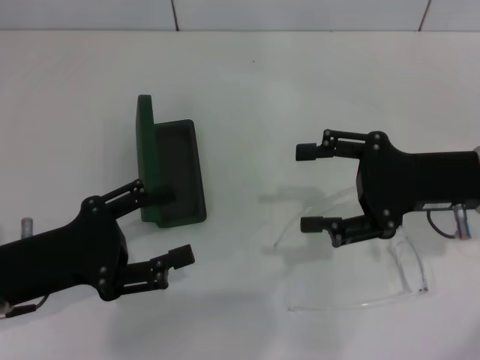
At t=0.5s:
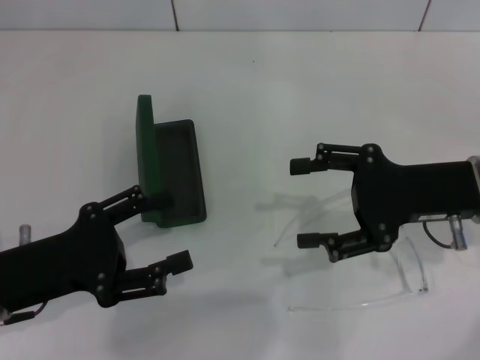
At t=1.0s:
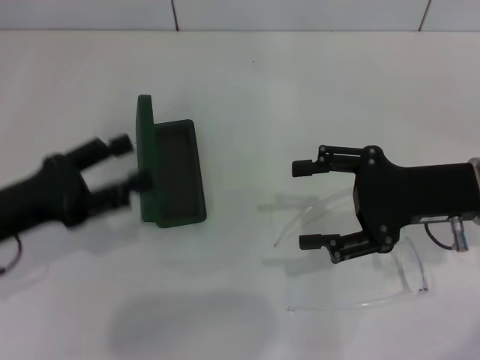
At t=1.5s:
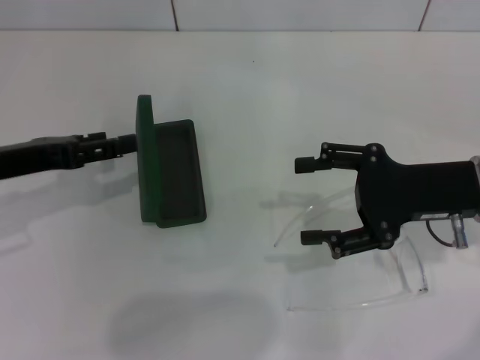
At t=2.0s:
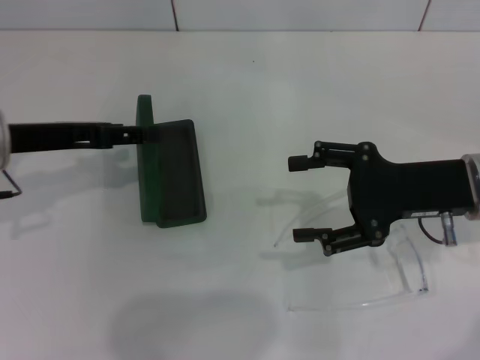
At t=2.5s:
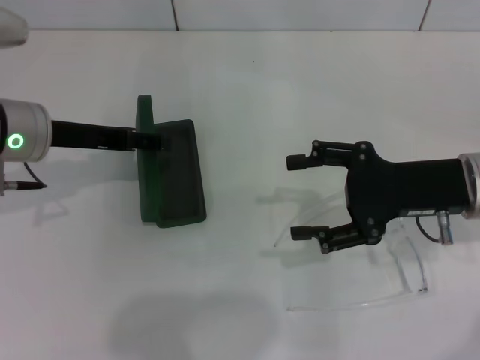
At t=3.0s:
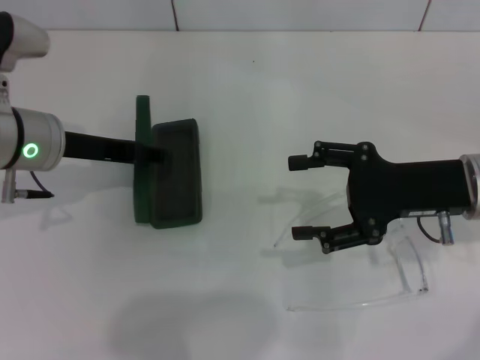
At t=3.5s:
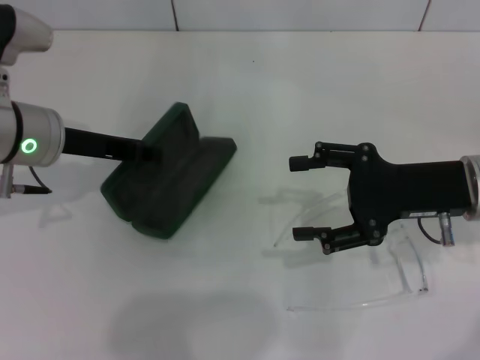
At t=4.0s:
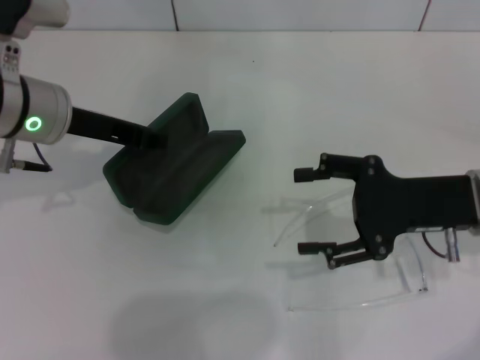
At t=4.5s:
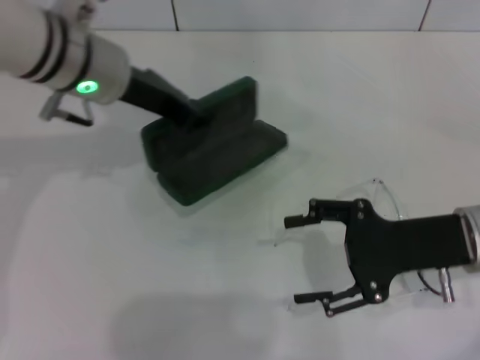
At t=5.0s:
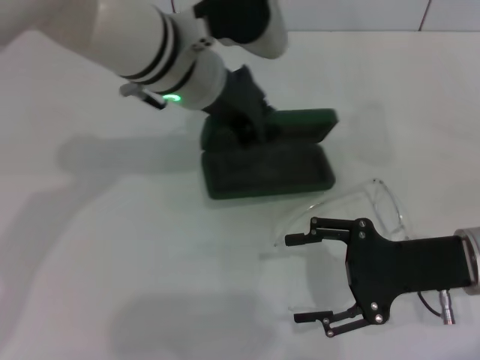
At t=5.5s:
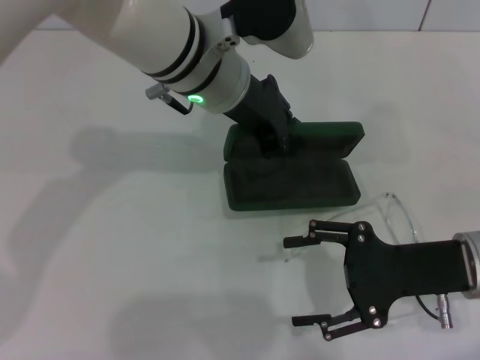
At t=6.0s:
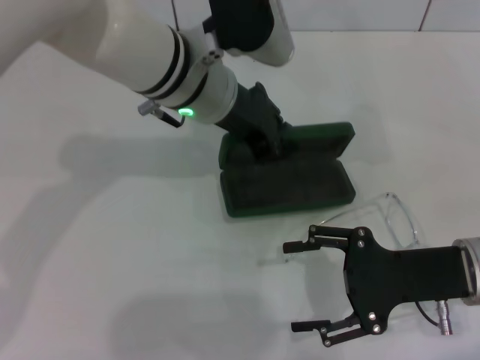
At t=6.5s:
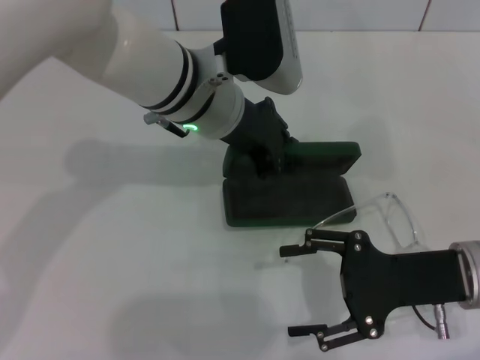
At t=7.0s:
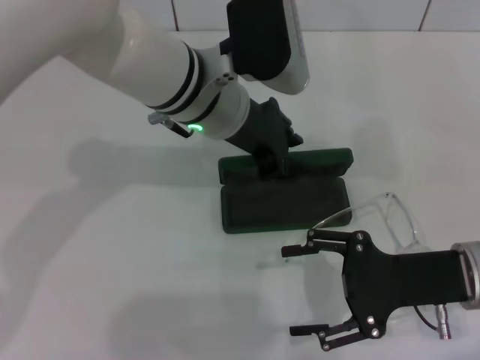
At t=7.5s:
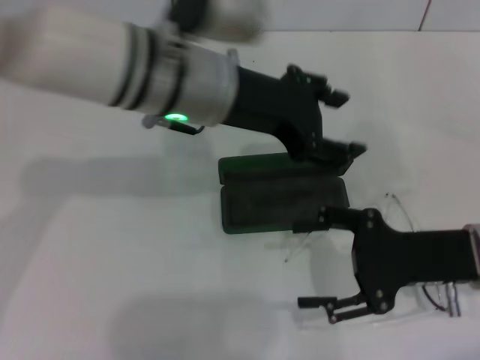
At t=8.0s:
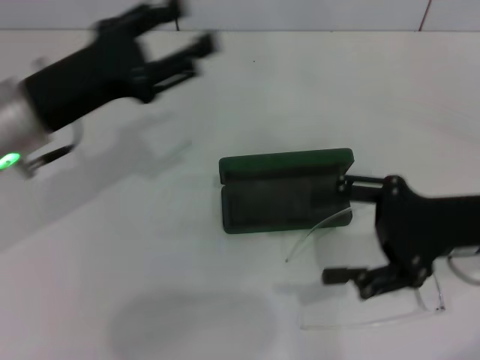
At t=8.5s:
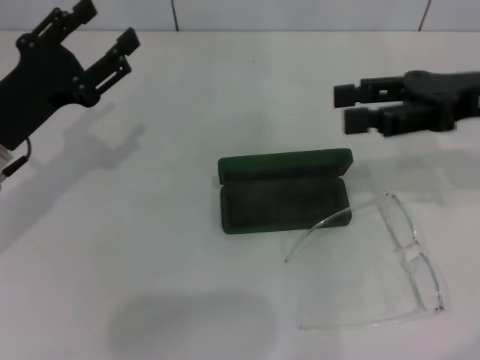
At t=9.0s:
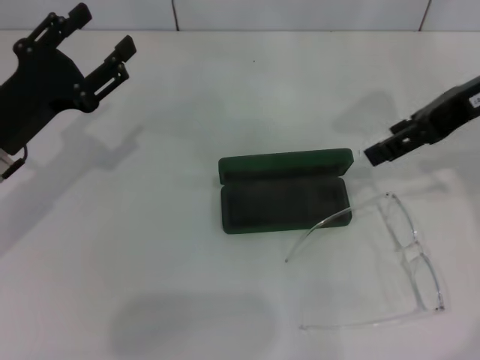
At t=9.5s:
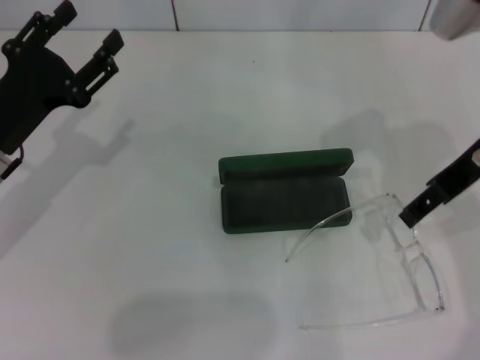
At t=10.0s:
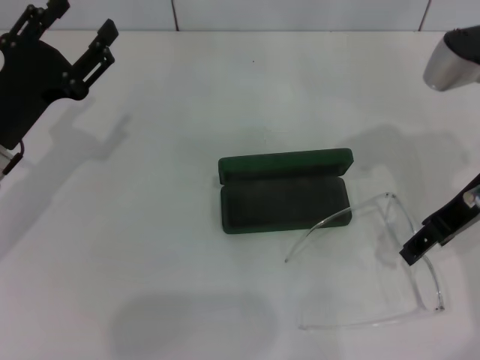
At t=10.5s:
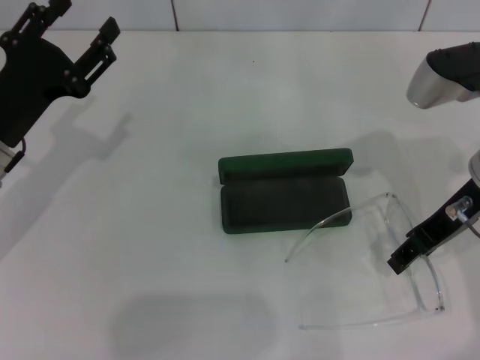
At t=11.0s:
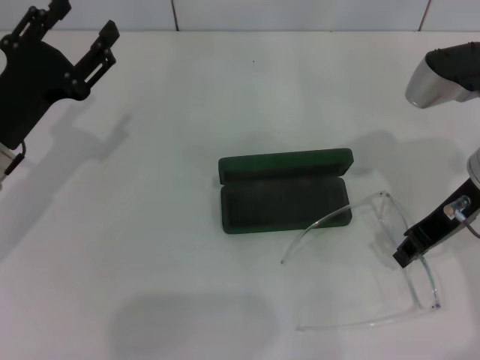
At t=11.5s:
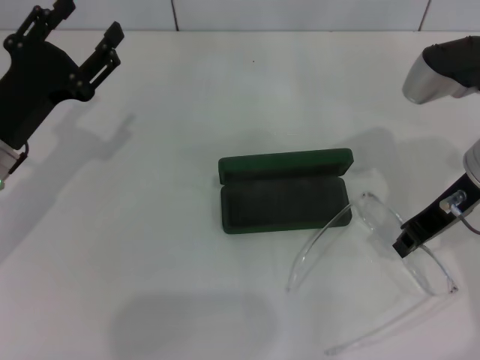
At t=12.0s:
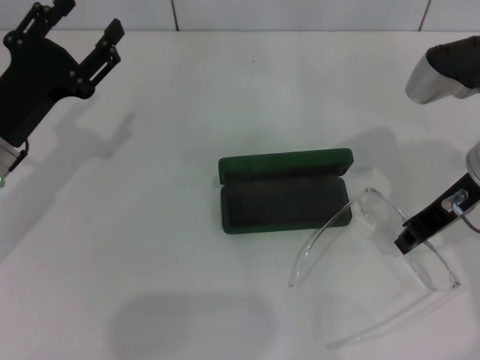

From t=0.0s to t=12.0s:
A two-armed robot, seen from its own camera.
Step, from t=0.0s to t=3.0s: Grab the glasses case with your left hand.
Step, from t=3.5s to t=6.5s: Place the glasses case in the center of the table with your left hand.
Step, from t=7.0s to t=11.0s: Grab the eyeglass frame with your right hand.
From t=0.0s to t=2.0s: The left gripper travels forward and upward by about 15 cm.
From t=2.0s to t=4.0s: The left gripper is displaced to the right by approximately 5 cm, and closes.
From t=4.0s to t=6.0s: The left gripper moves to the right, some 15 cm. The right gripper ends up roughly 5 cm from where it was.
From t=6.0s to t=8.0s: The right gripper shifts by about 5 cm, while the left gripper moves to the left and backward, about 20 cm, and opens its fingers.
From t=8.0s to t=10.0s: The left gripper ends up about 5 cm from where it was. The right gripper goes roughly 10 cm upward and forward.
From t=10.0s to t=12.0s: The right gripper closes.

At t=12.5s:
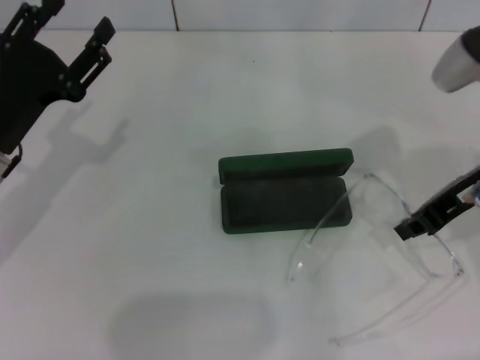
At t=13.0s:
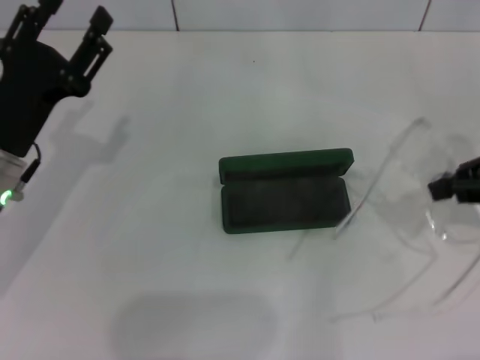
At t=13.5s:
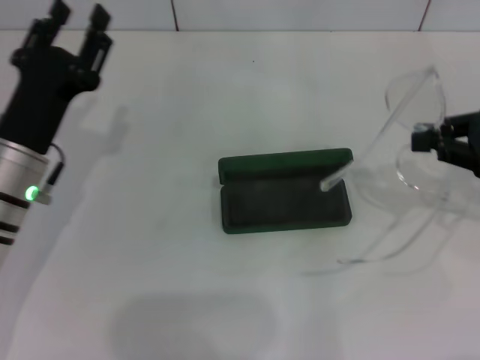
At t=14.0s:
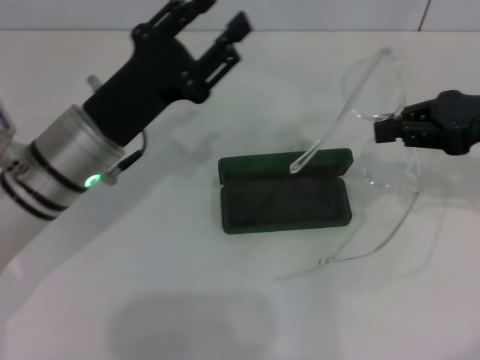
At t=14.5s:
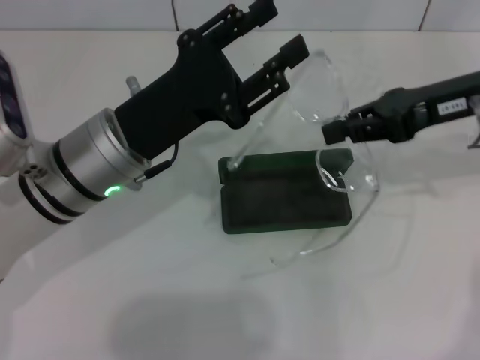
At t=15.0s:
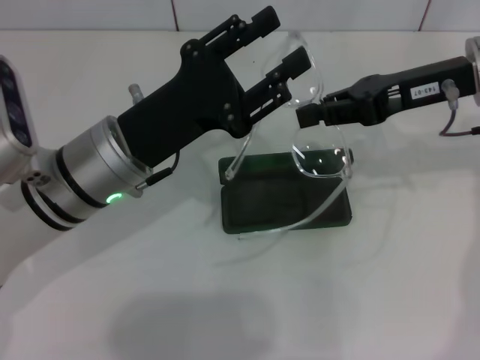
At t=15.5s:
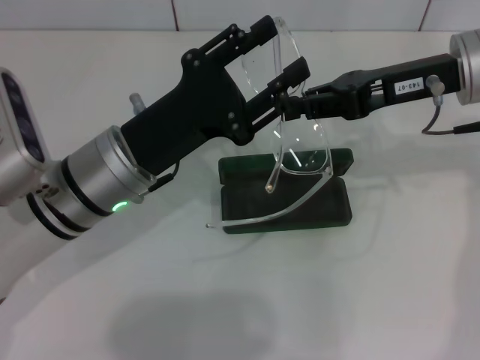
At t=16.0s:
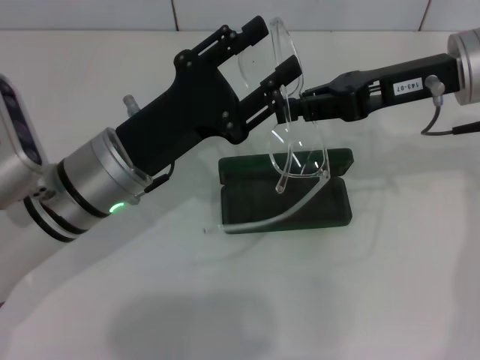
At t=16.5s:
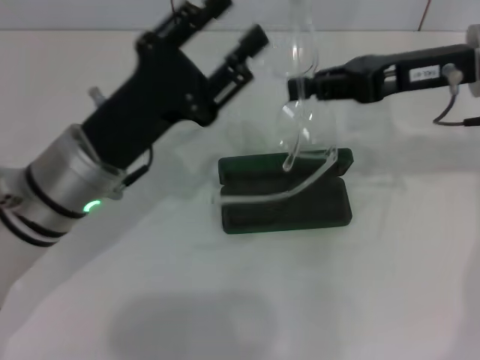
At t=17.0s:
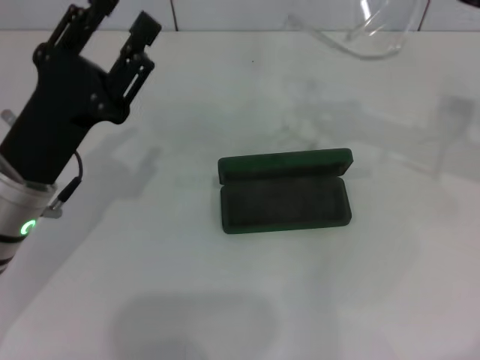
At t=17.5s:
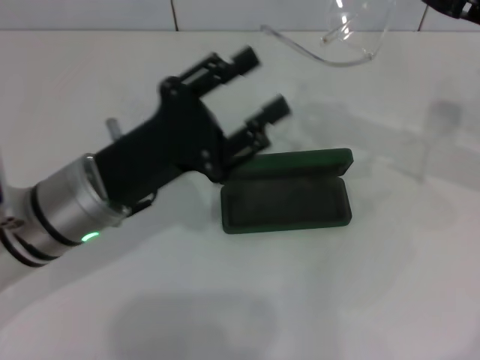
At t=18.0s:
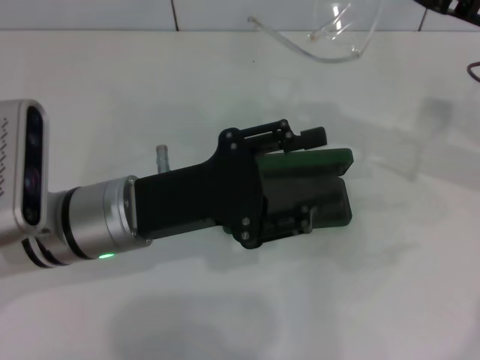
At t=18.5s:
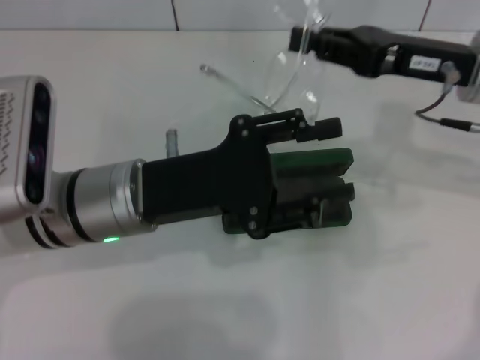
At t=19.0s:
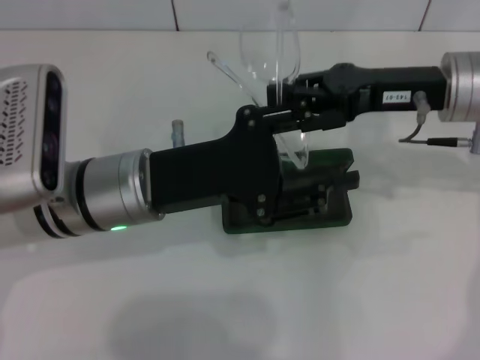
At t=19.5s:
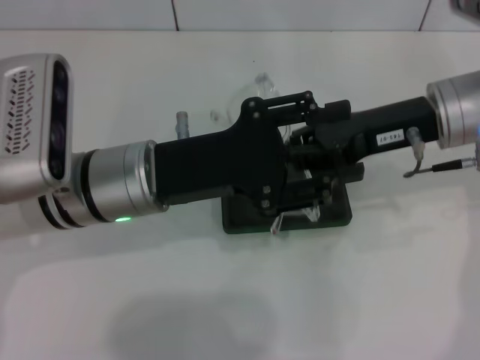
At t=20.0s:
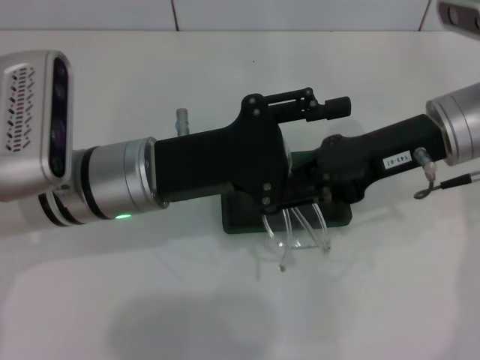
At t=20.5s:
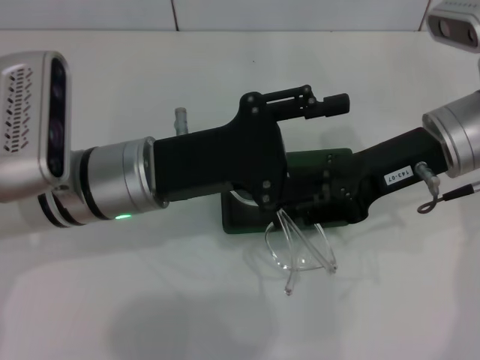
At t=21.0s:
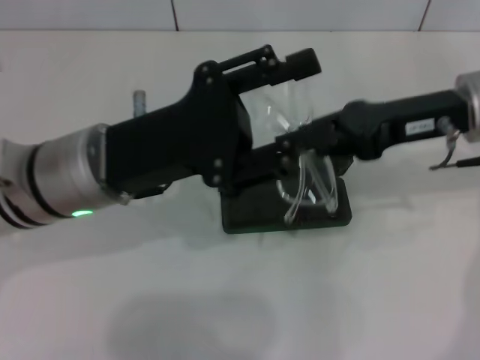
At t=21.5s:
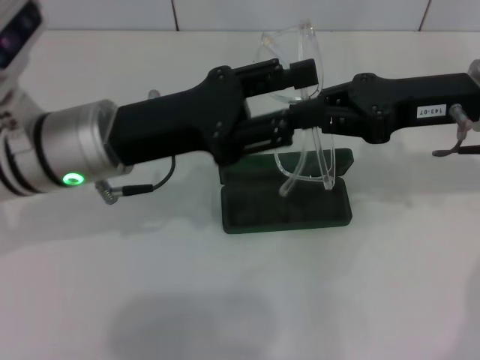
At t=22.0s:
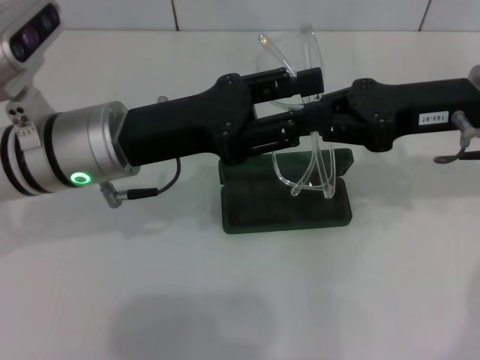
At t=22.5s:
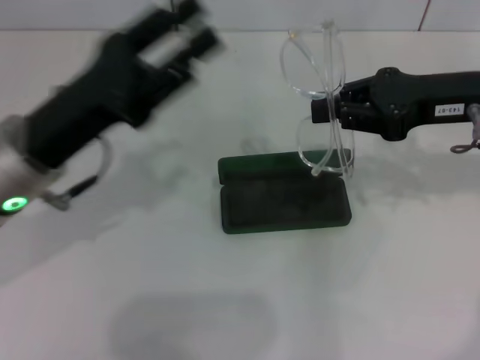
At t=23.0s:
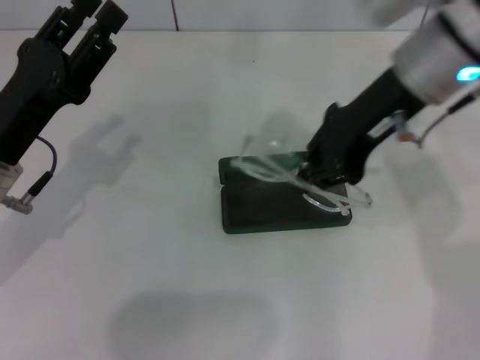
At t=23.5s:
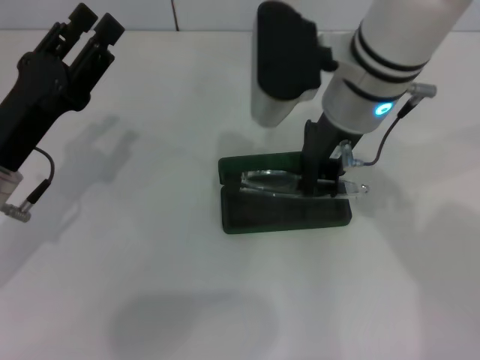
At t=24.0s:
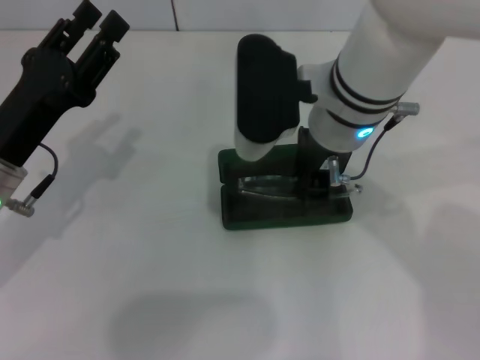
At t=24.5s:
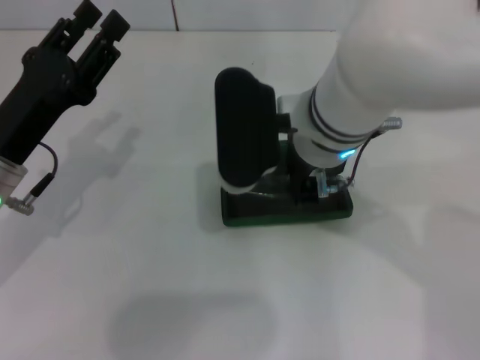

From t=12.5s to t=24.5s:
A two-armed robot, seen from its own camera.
Step, from t=12.5s to t=20.0s: Fold the frame with your left hand.
From t=12.5s to t=14.5s: The right gripper reaches some 10 cm to the right, then returns, while the left gripper heads to the right, covering roughly 10 cm.
From t=20.5s to t=22.5s: The right gripper is displaced to the right by roughly 5 cm. The left gripper moves to the left, roughly 5 cm.
From t=22.5s to t=24.5s: The right gripper travels to the left by roughly 20 cm. The left gripper moves about 5 cm.

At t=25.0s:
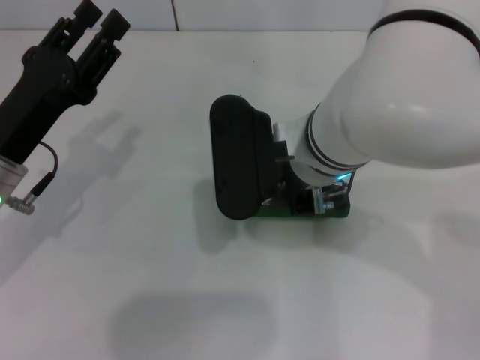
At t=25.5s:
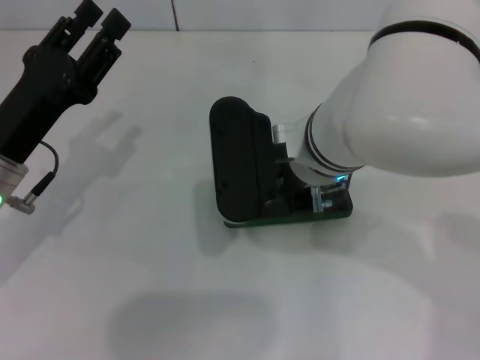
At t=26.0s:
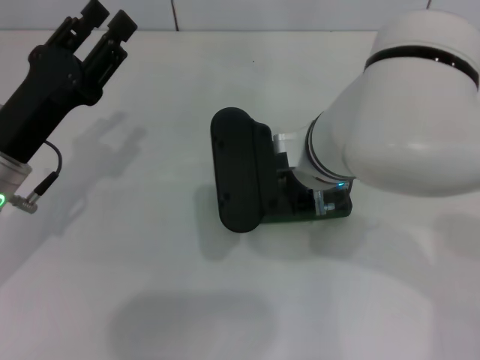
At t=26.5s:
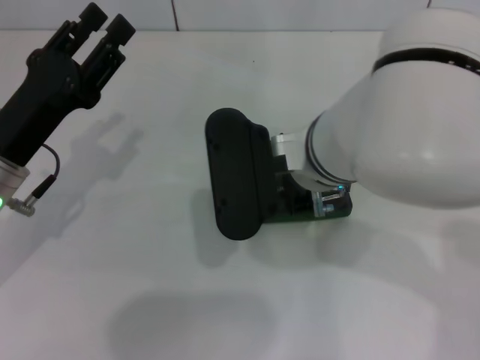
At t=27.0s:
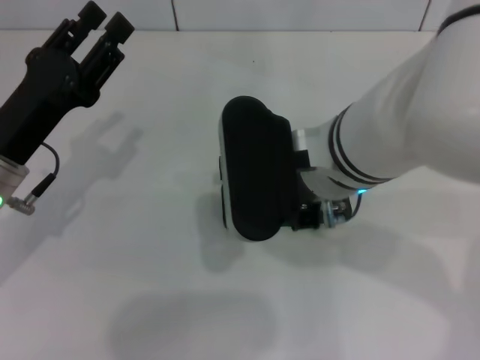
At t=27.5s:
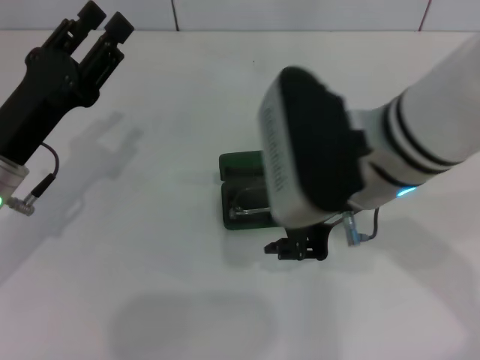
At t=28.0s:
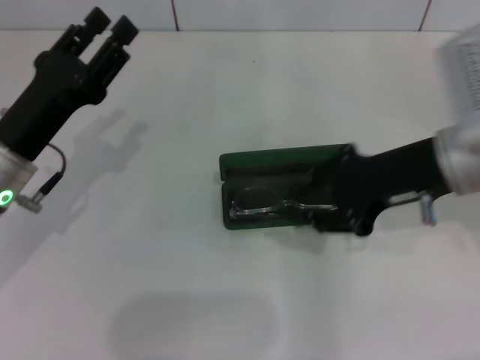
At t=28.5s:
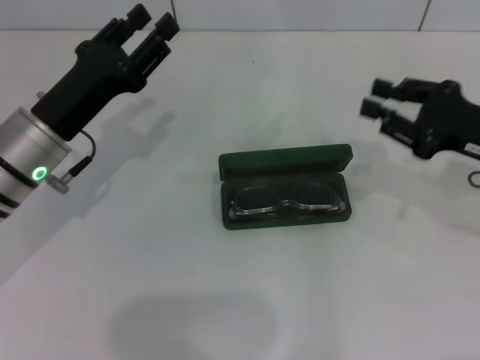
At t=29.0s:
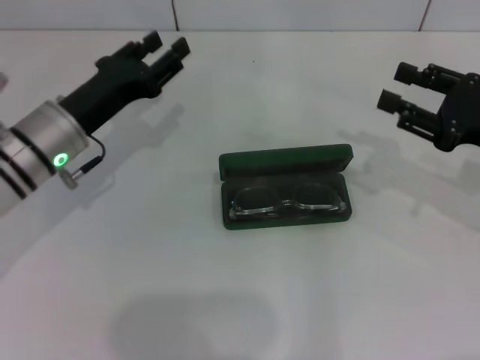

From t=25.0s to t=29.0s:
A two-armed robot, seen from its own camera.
Step, from t=25.0s to t=27.5s: Put the glasses into the case with your right hand.
From t=25.0s to t=27.0s: There are only small adjustments of the grippers.
From t=27.0s to t=29.0s: The left gripper shifts roughly 5 cm forward. The right gripper goes some 25 cm to the right.
